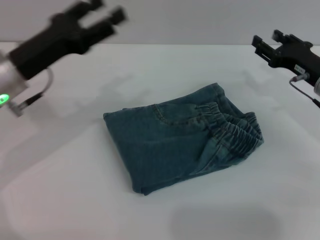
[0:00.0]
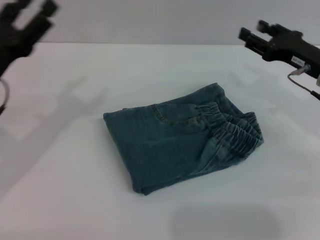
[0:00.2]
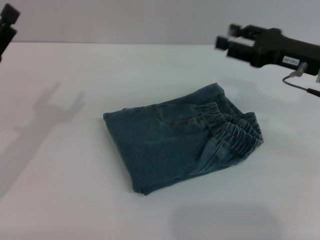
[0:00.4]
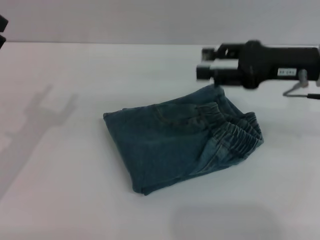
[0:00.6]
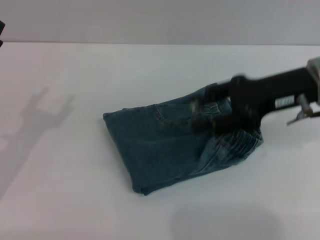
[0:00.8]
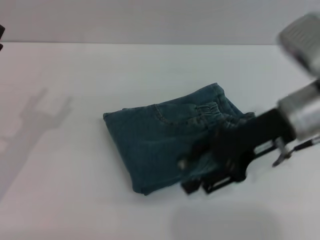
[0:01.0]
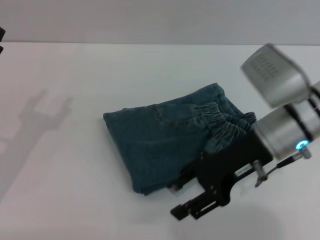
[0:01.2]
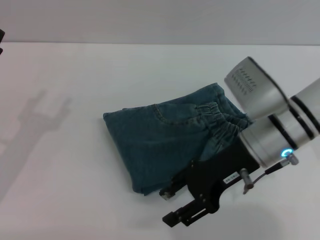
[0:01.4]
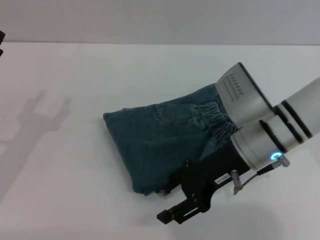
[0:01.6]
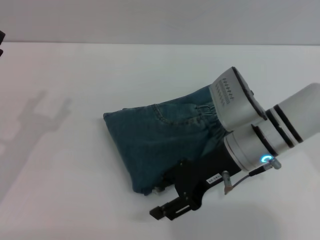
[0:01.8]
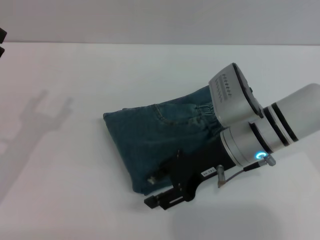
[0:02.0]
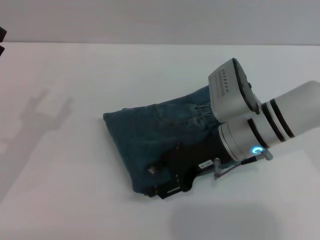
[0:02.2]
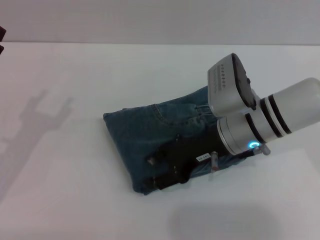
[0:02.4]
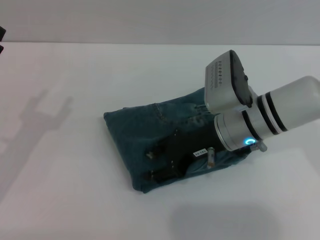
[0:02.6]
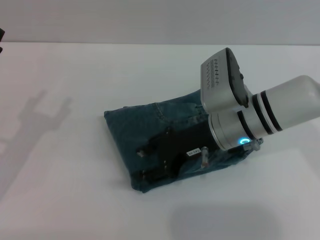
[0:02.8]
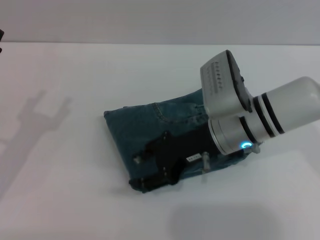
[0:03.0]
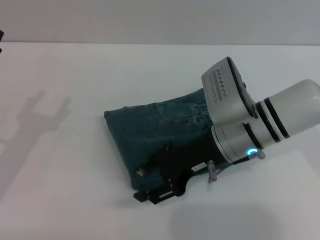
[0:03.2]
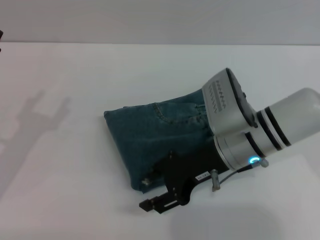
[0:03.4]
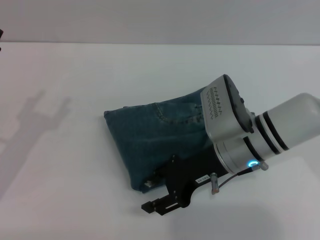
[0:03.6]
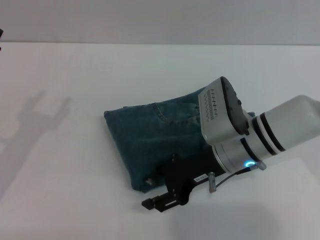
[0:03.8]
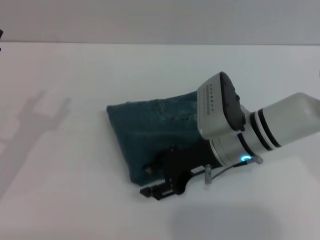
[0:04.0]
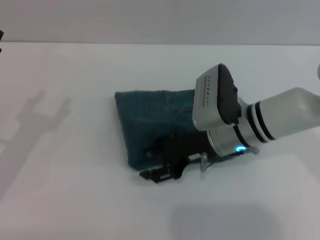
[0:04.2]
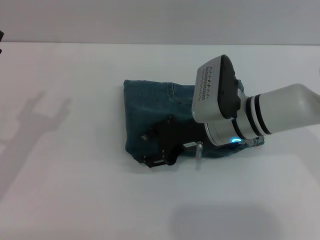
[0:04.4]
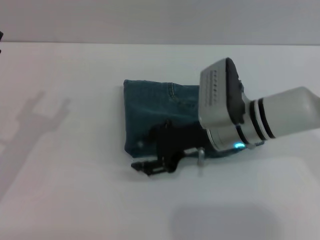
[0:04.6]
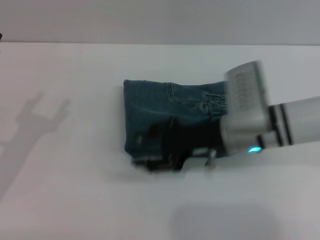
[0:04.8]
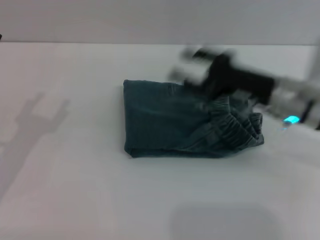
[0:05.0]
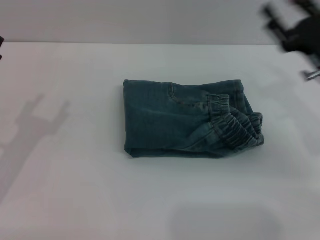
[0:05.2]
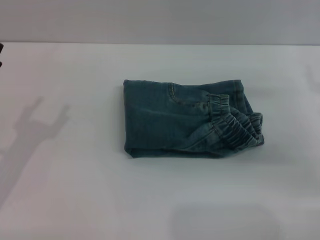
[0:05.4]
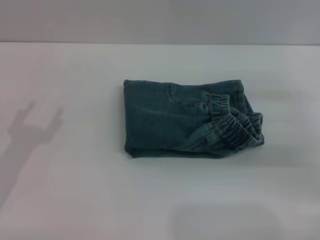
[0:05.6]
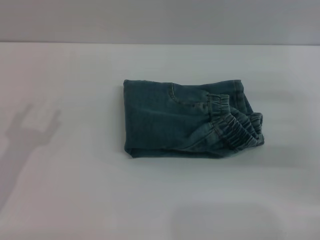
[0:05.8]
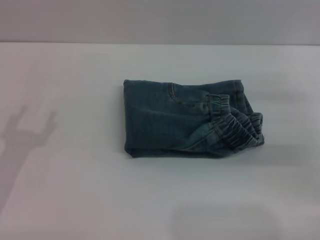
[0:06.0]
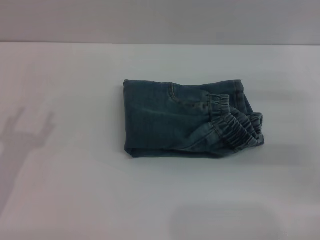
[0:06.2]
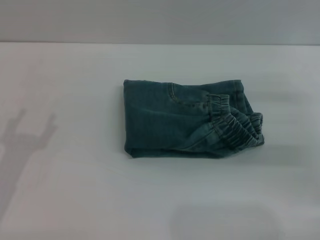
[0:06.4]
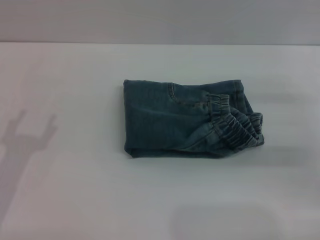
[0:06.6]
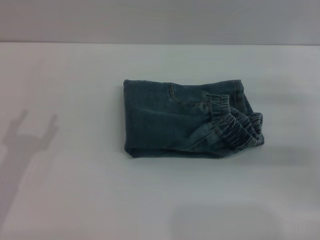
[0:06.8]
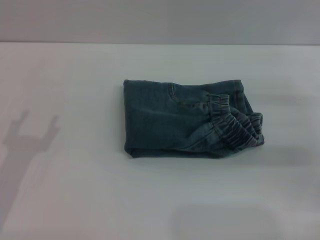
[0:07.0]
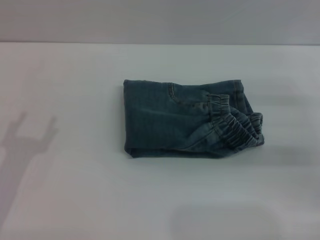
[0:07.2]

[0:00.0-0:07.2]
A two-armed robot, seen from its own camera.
Step, 0:00.0 to 0:04.6: Place the folded trousers onto the center area with the right grippers.
0:00.0 to 0:01.4: The left gripper goes approximately 10 cm backward, to the left and downward, while the right gripper heads to the left and backward, covering roughly 15 cm.
0:01.4 to 0:02.8: The grippers stay close to where they were, moving slightly.
0:02.8 to 0:04.4: The grippers move only a little.
0:04.4 to 0:05.8: The right gripper heads to the right, covering about 20 cm.

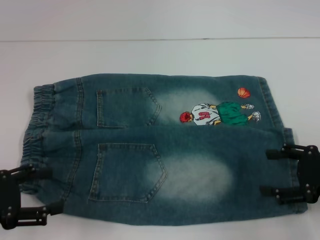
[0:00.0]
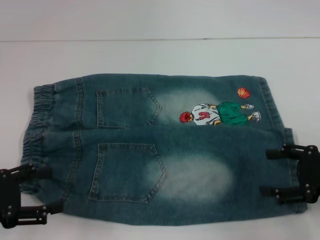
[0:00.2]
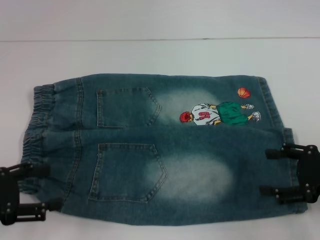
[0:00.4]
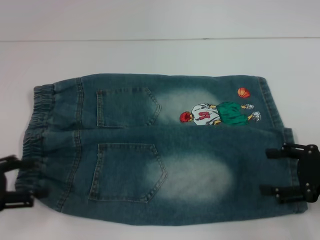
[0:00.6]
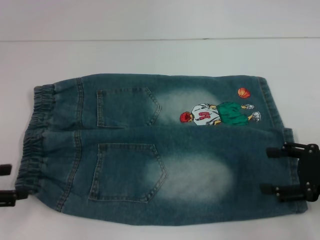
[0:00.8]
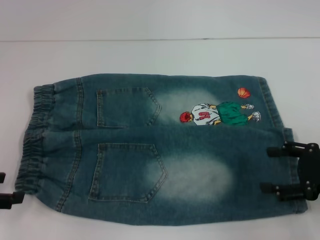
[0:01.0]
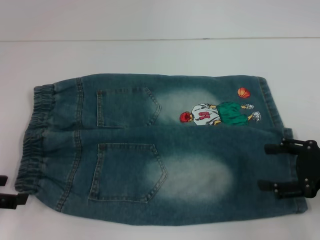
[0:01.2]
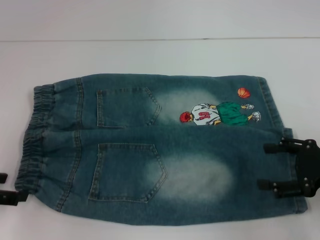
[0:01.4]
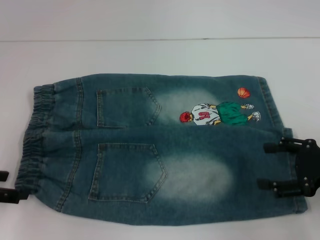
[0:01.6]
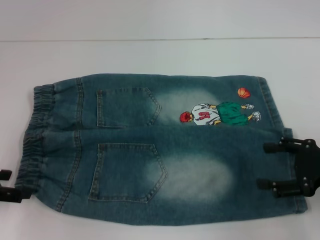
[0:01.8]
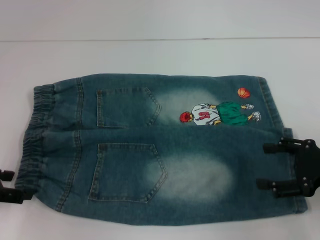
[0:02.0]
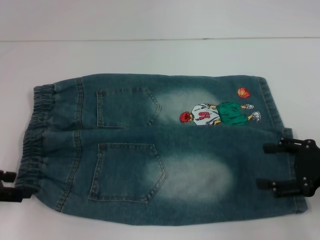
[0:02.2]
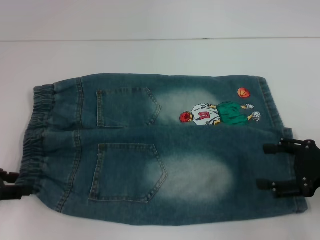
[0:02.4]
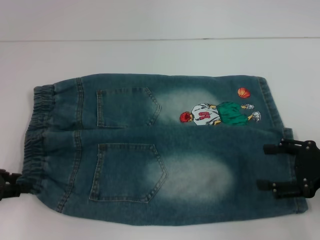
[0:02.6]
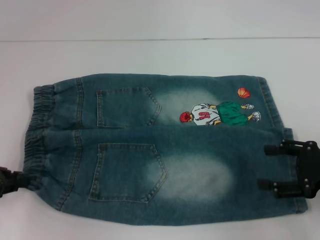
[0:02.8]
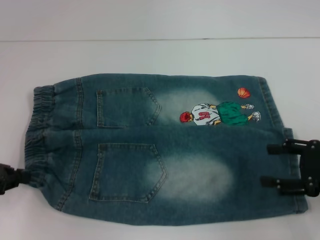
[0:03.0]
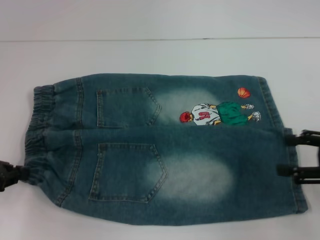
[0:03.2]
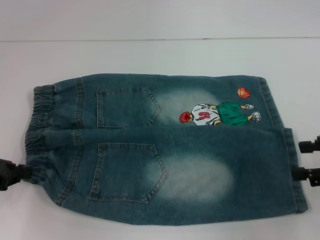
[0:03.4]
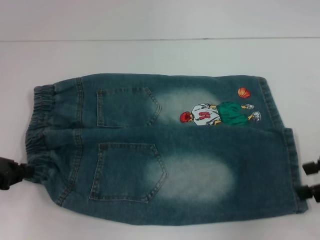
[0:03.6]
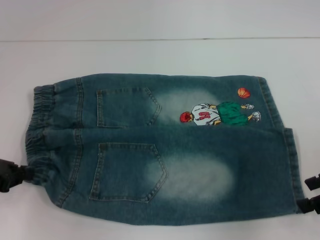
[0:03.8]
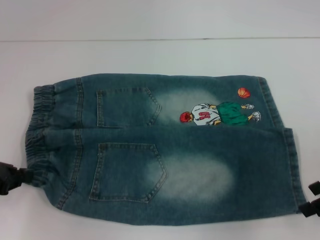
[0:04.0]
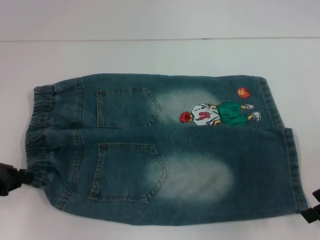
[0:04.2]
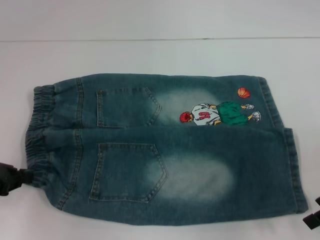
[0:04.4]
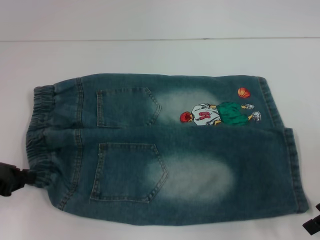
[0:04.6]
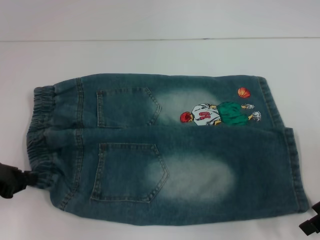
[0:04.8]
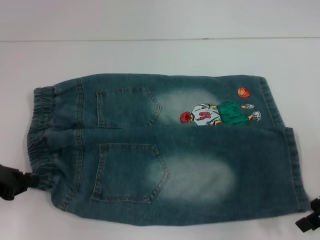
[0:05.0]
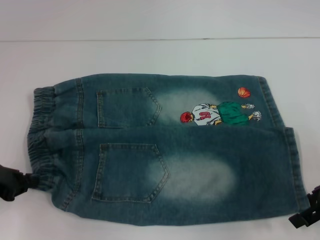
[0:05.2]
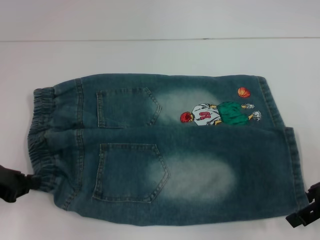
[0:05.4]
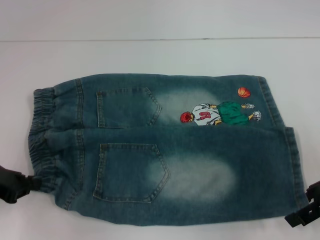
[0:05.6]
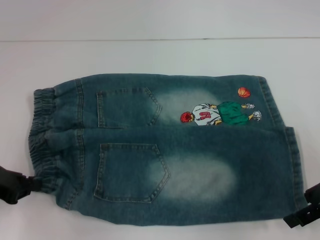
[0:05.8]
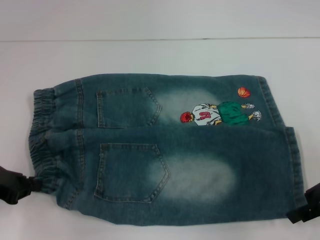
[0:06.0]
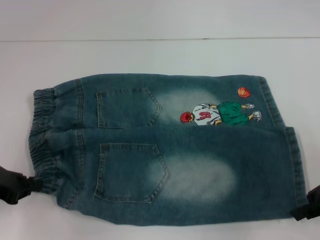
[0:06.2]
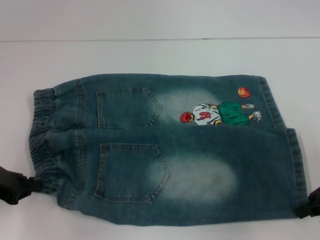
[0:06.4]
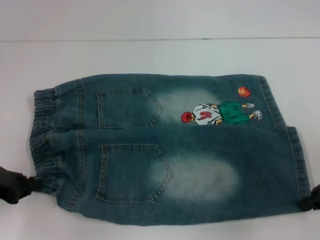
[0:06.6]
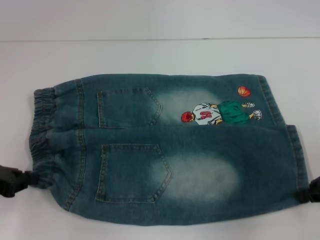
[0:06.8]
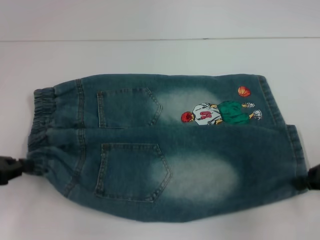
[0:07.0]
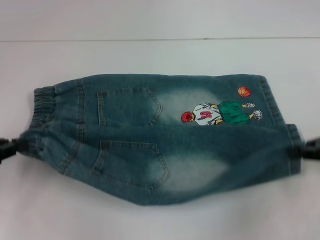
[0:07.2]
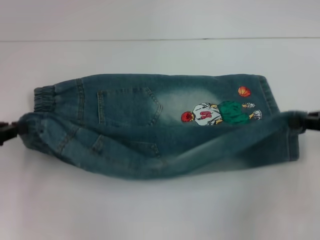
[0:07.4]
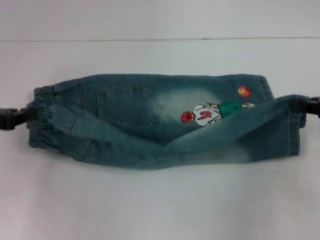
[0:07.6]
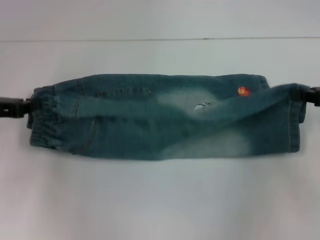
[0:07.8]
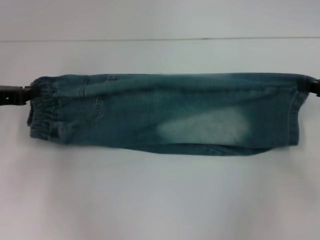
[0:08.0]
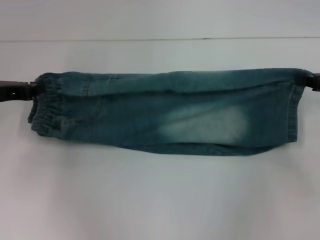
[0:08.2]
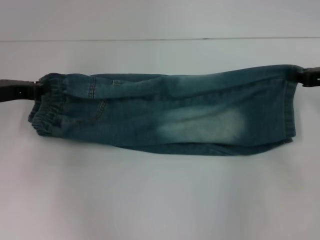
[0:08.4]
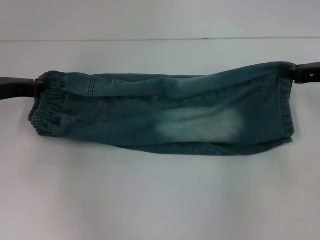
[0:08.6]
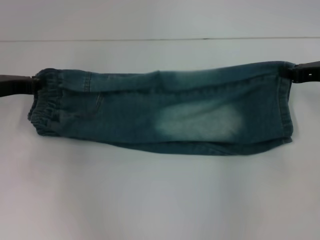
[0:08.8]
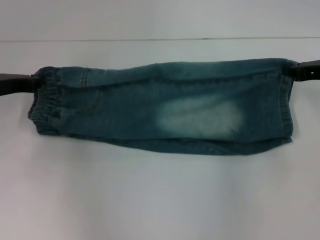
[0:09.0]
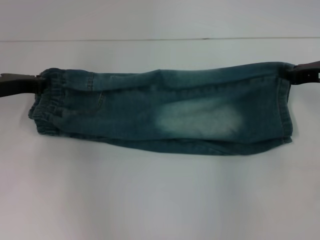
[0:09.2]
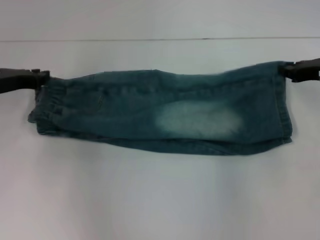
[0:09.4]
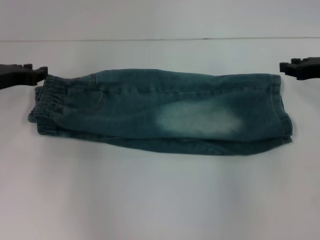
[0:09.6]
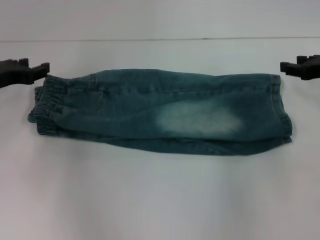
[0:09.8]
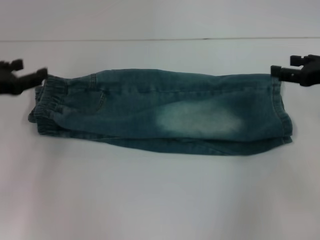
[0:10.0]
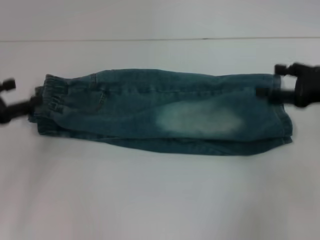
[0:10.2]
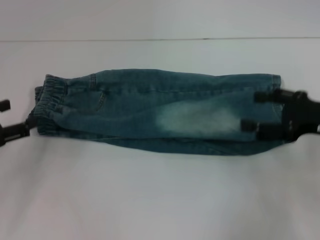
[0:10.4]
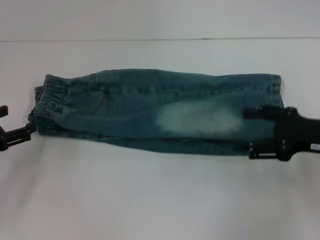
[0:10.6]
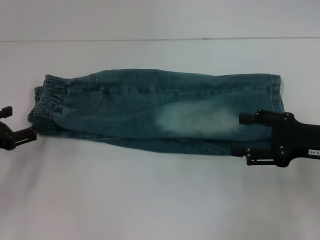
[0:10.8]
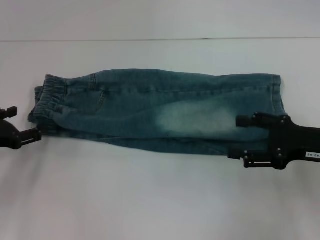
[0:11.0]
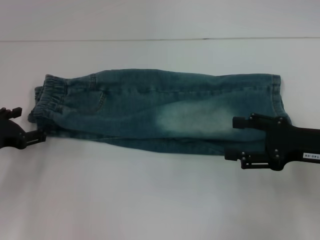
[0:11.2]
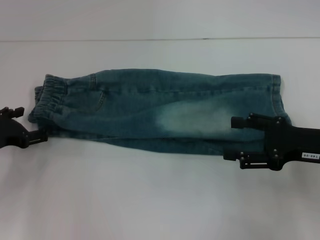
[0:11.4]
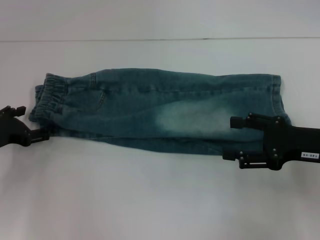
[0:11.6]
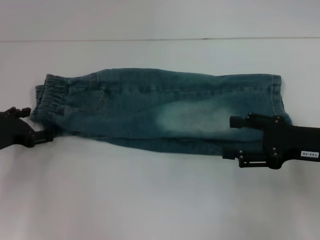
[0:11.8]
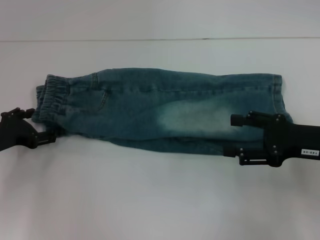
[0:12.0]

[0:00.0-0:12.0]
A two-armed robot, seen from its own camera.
Step, 0:00.0 to 0:02.8: Hold the lower left waistband with your left hand.
Step, 0:03.2 to 0:06.4: Grab the lower right pant leg with your right hand.
Step, 0:06.6 to 0:09.4: Fold upward with your right hand.
0:00.0 to 0:01.6: The left gripper moves about 5 cm.
0:01.6 to 0:03.0: The left gripper closes.
0:03.0 to 0:04.4: The right gripper heads upward, covering roughly 5 cm.
0:04.4 to 0:06.0: The grippers stay close to where they were, moving slightly.
0:06.0 to 0:07.6: The left gripper changes place by about 5 cm, while the right gripper changes place by approximately 5 cm, and closes.
0:07.6 to 0:09.0: Both grippers move forward, approximately 5 cm.
0:09.0 to 0:10.4: Both grippers travel together backward, approximately 10 cm. The left gripper opens its fingers; the right gripper opens.
0:10.4 to 0:12.0: The left gripper travels downward by approximately 5 cm.

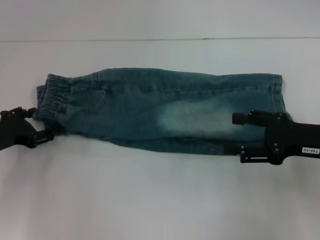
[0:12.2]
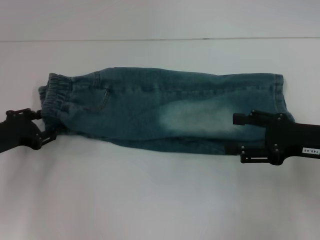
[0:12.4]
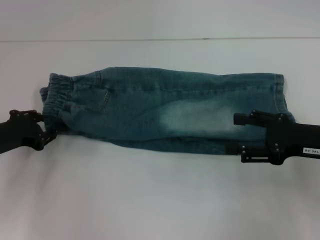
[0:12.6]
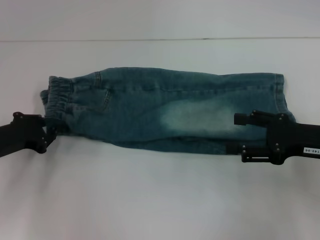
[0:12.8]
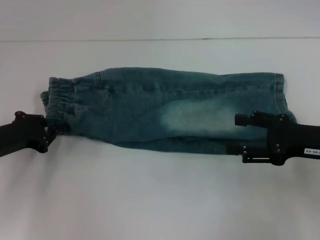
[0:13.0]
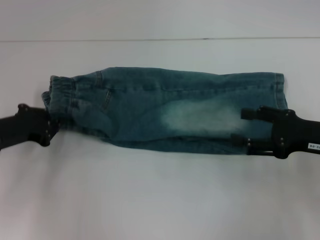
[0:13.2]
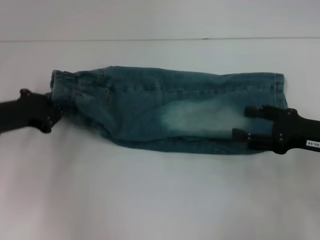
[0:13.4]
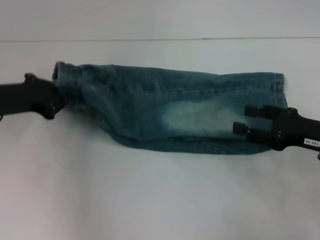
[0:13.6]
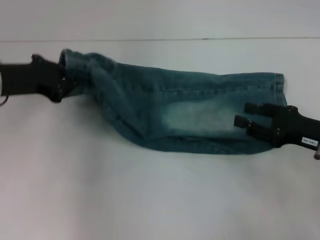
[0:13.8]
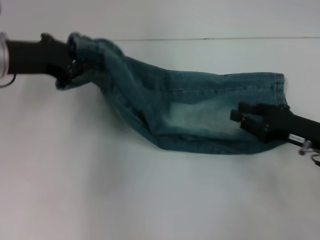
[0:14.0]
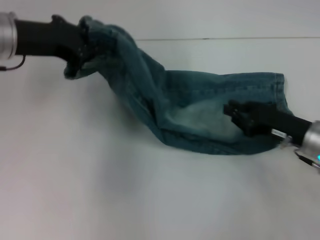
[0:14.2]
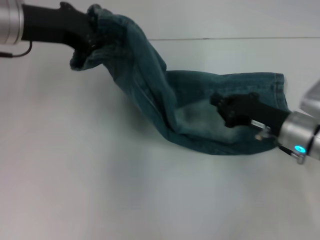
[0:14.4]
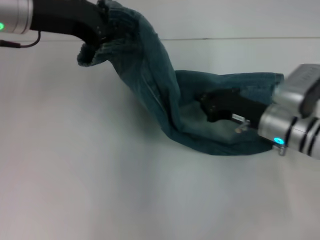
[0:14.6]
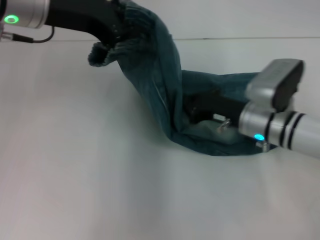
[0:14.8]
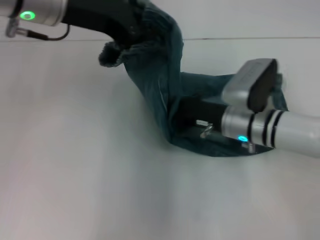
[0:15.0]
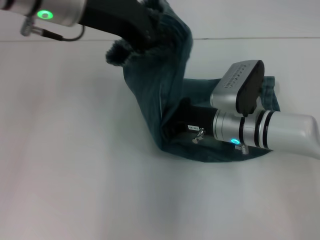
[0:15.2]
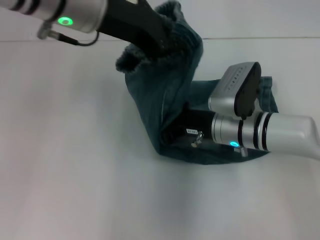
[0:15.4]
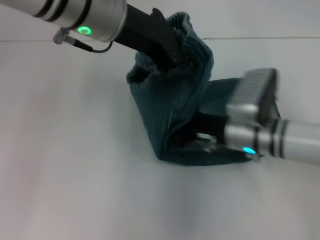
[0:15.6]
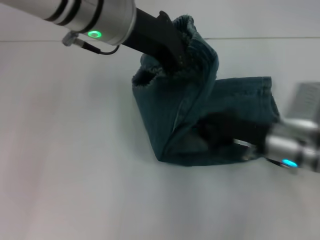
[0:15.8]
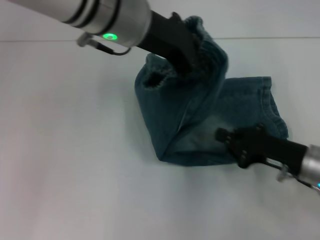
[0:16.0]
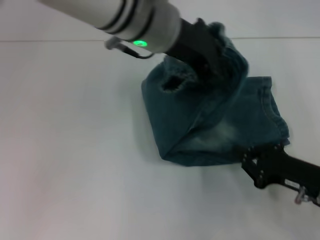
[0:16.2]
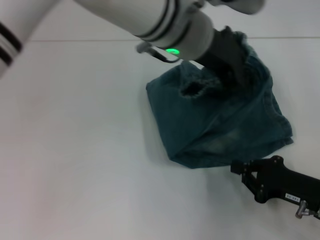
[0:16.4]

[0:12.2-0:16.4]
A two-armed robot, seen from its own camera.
Step, 0:13.4 to 0:15.4: Press the middle of the pants with your right hand.
0:12.2 to 0:13.6: The left gripper goes about 5 cm upward, and closes.
0:13.6 to 0:15.0: The left gripper moves upward and to the right, some 20 cm. Meanwhile the right gripper heads to the left and forward, covering approximately 15 cm, and closes up.
0:15.0 to 0:16.4: The left gripper heads to the right, covering approximately 15 cm; the right gripper heads to the right and backward, covering roughly 20 cm.
